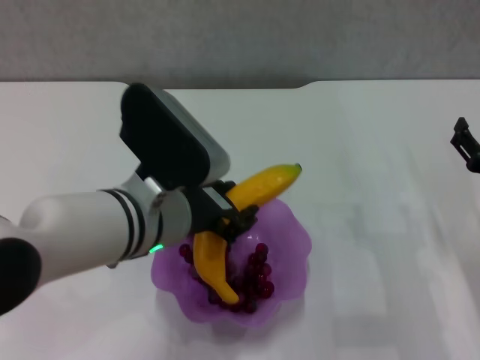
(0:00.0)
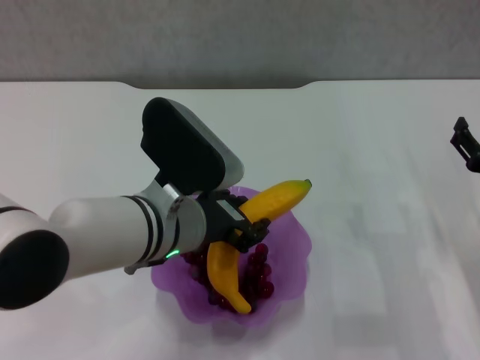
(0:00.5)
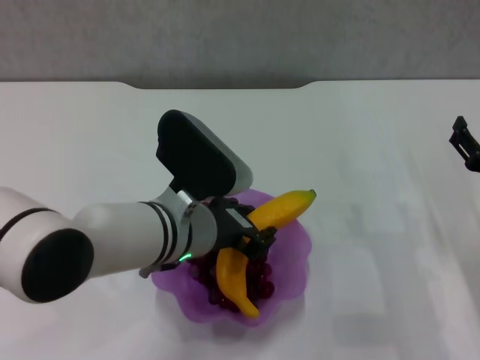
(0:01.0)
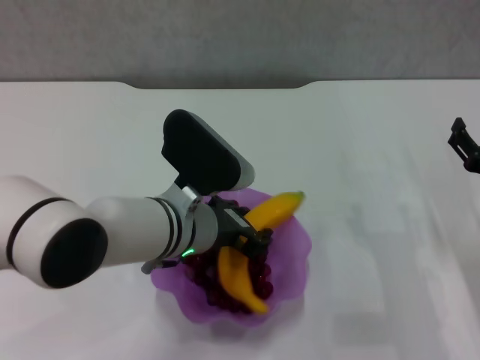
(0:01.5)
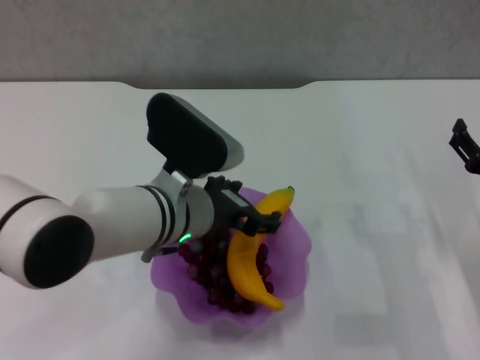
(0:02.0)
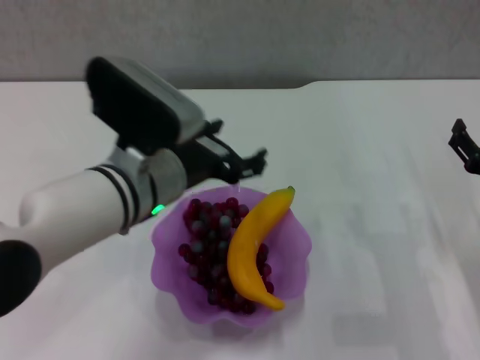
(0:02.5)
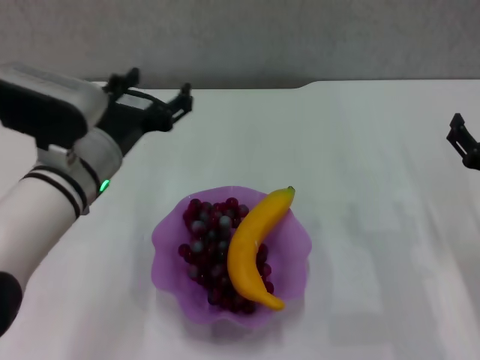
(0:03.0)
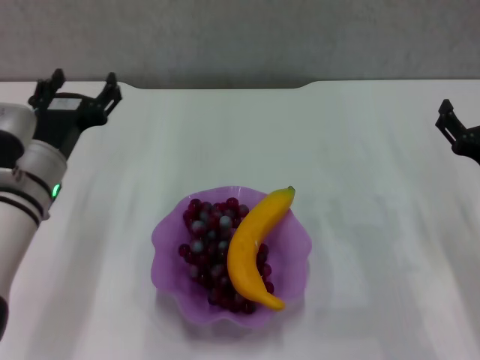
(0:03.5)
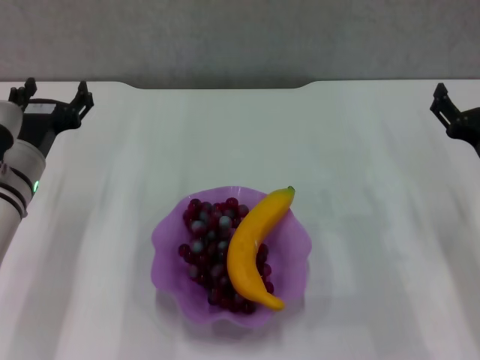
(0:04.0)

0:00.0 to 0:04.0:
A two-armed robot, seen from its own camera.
0:00.0 to 0:02.0: The left gripper moves roughly 5 cm, and opens its fingers.
0:02.0 to 0:04.0: The left gripper heads to the left, covering some 15 cm.

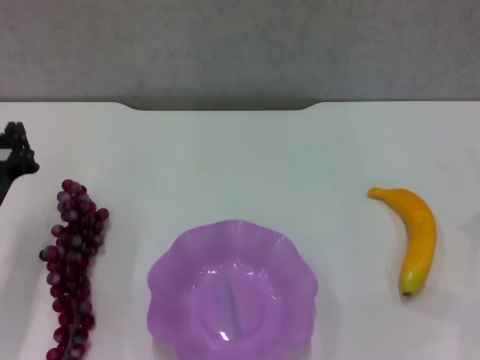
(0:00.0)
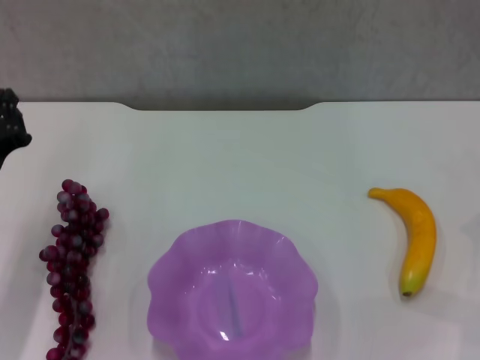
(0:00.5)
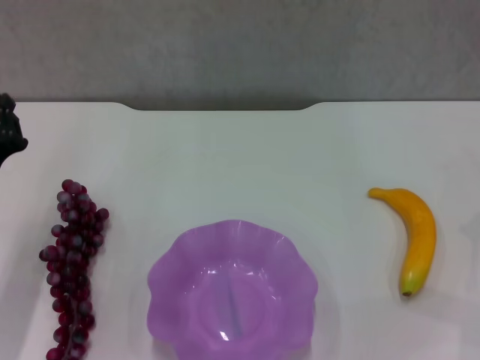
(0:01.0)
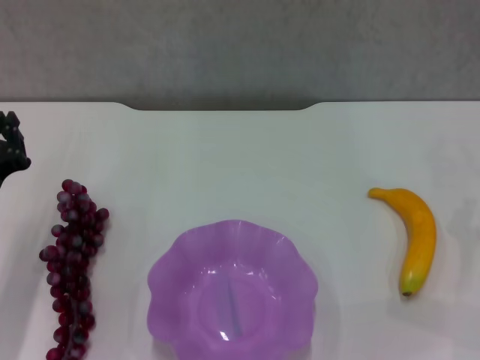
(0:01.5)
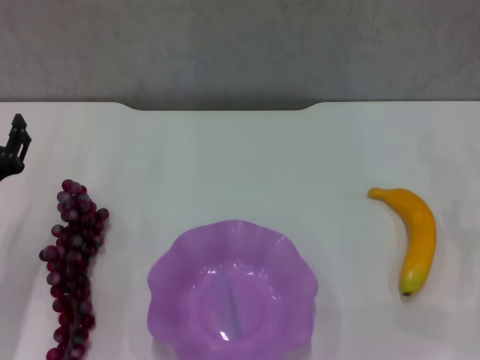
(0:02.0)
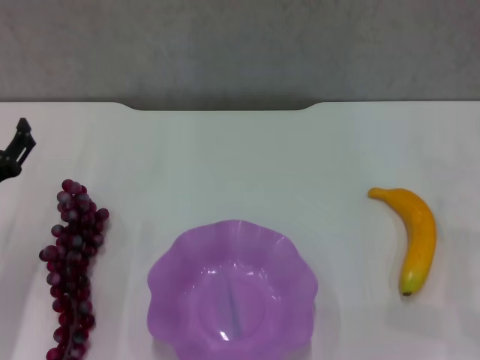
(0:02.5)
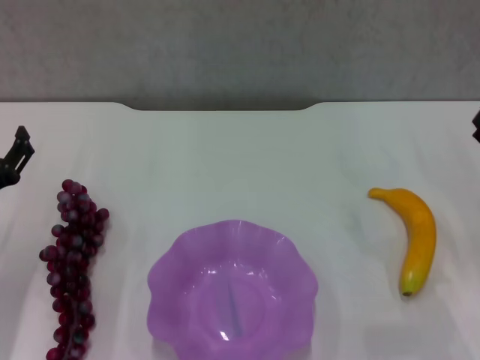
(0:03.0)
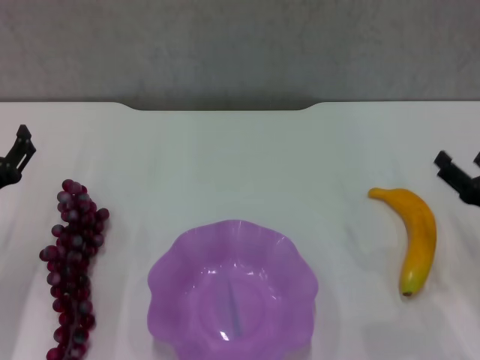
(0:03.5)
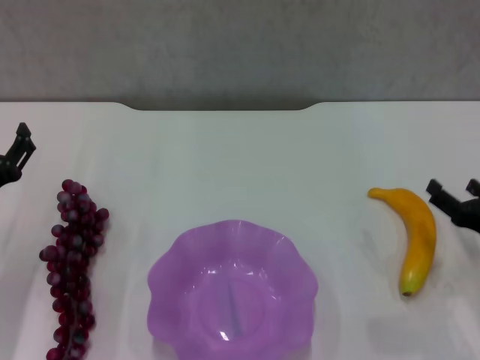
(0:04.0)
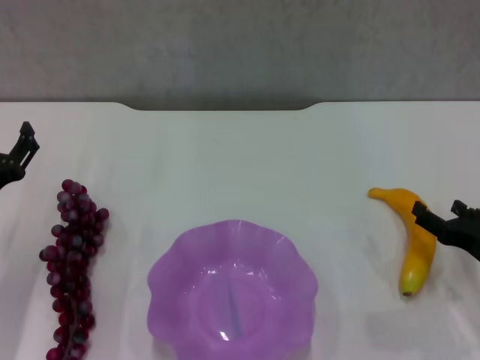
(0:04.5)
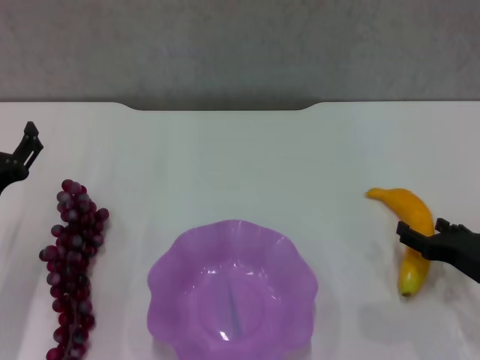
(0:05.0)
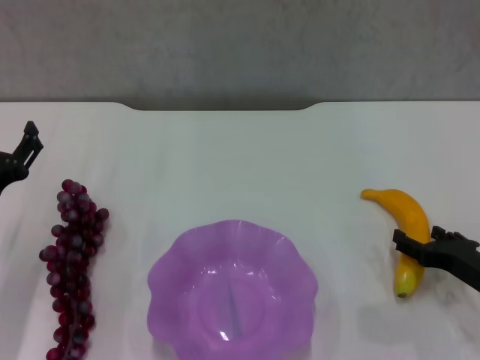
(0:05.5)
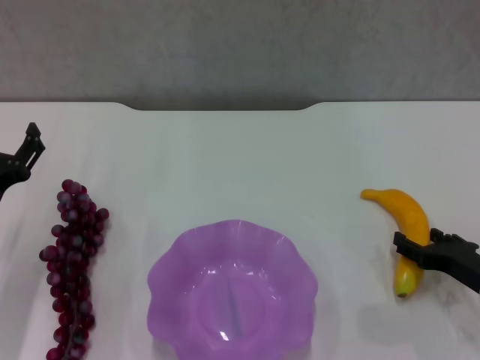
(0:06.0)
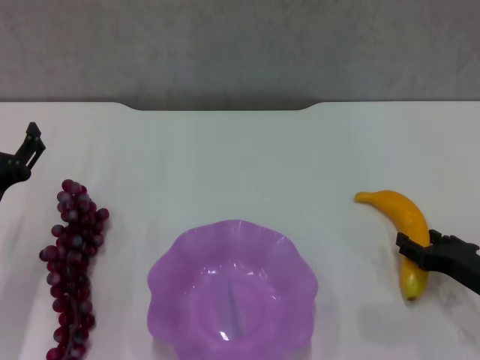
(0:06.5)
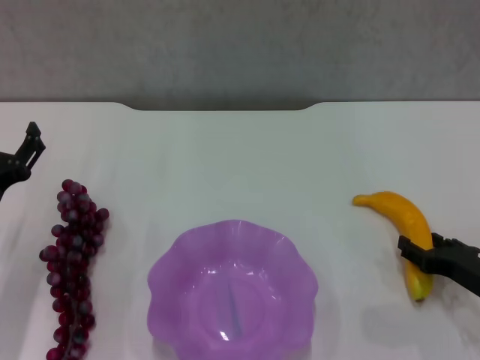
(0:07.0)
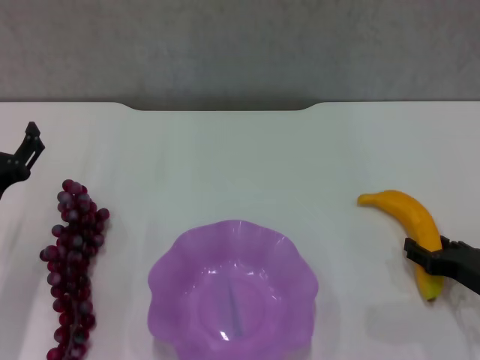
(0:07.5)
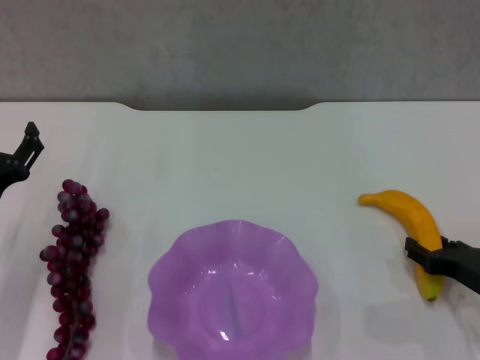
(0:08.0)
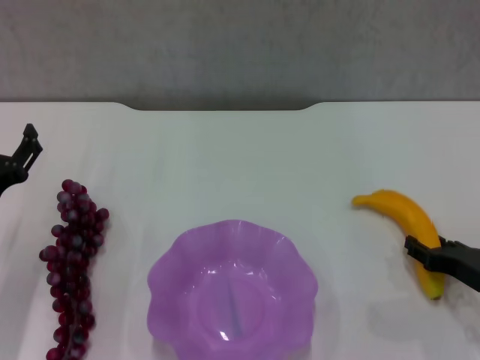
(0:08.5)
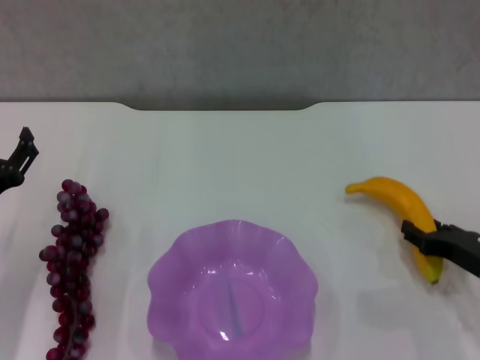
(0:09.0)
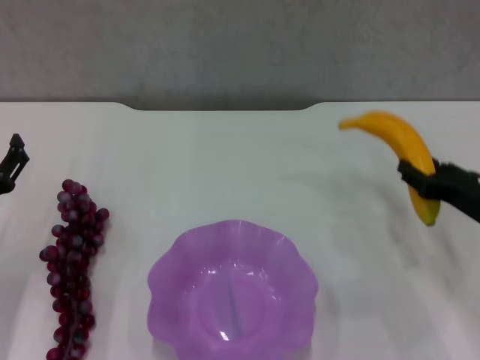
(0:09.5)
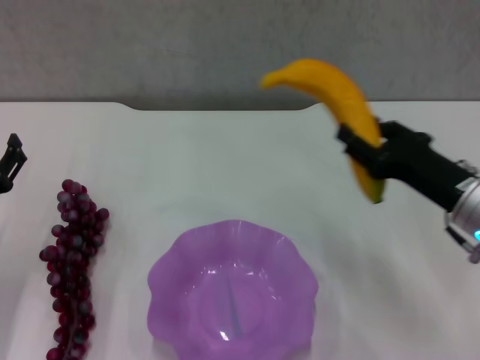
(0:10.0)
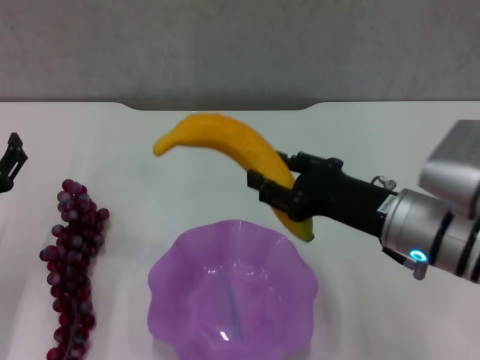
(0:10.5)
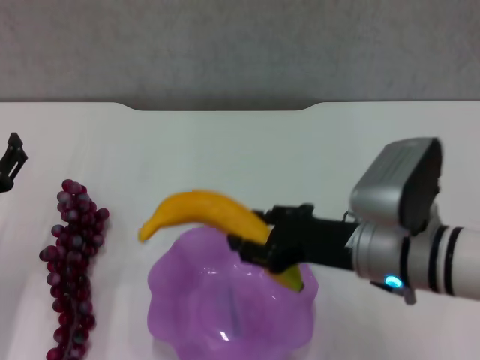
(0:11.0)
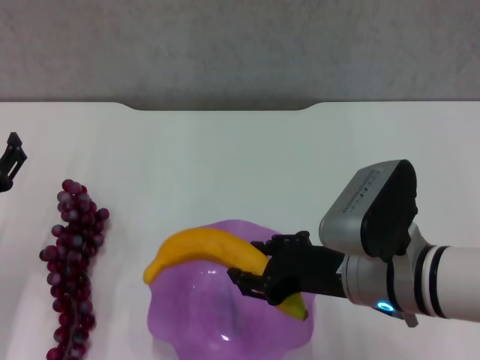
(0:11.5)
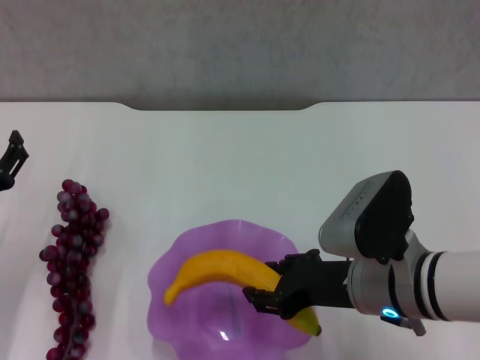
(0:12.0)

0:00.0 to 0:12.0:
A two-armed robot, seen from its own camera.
Step, 0:00.0 to 0:06.5: Grasp the banana with right gripper.
0:00.0 to 0:02.0: The left gripper opens its fingers.
0:02.0 to 0:04.0: The right gripper shifts about 10 cm to the left and downward.
0:04.0 to 0:06.0: The grippers make only small movements.
0:06.0 to 0:08.0: Both grippers stay about where they are.
0:08.0 to 0:10.0: The right gripper travels upward and to the left by roughly 15 cm.
0:10.0 to 0:12.0: The right gripper goes roughly 10 cm to the left.

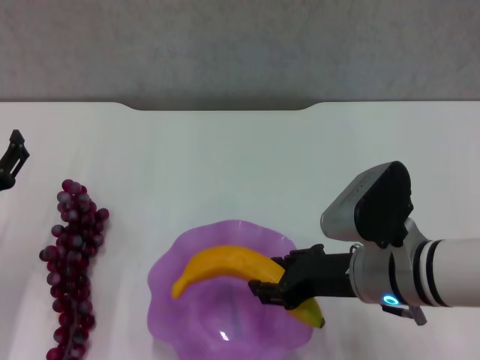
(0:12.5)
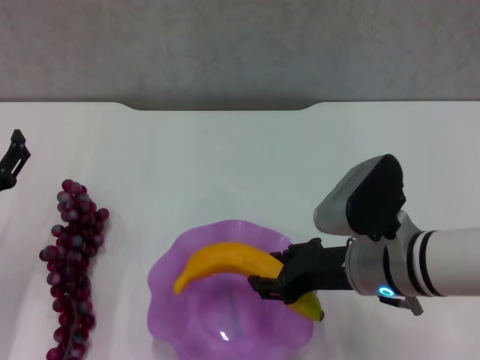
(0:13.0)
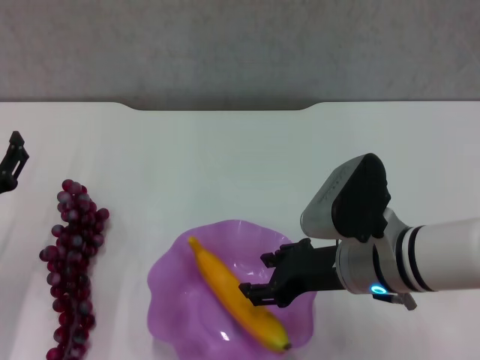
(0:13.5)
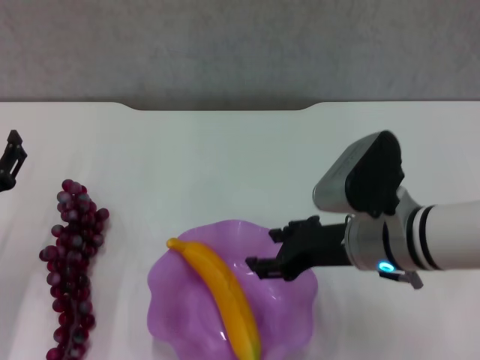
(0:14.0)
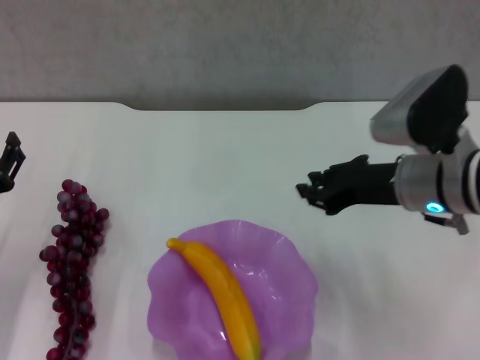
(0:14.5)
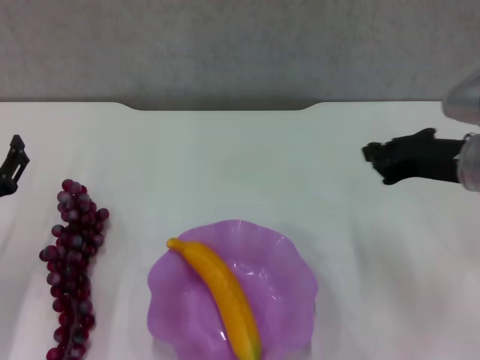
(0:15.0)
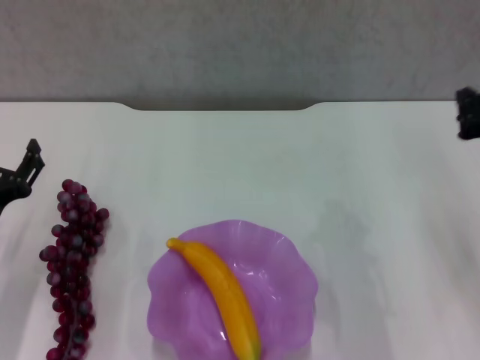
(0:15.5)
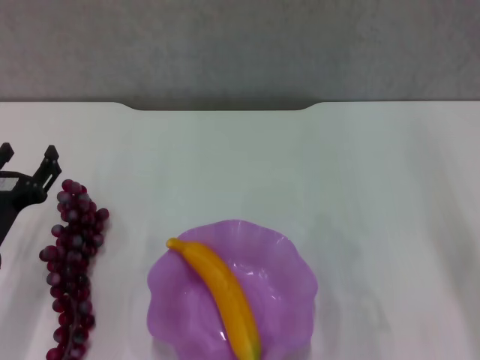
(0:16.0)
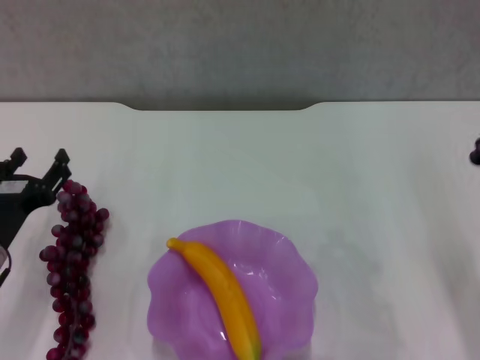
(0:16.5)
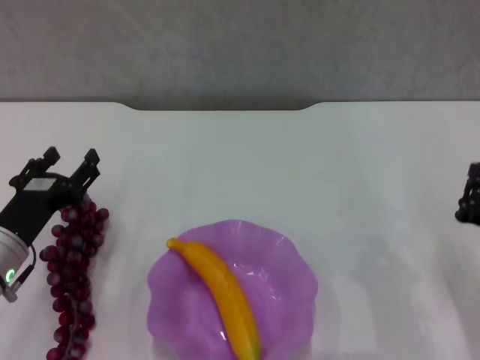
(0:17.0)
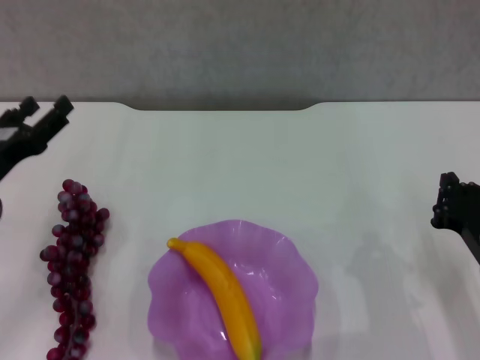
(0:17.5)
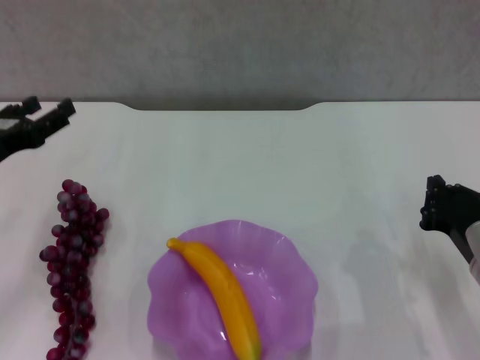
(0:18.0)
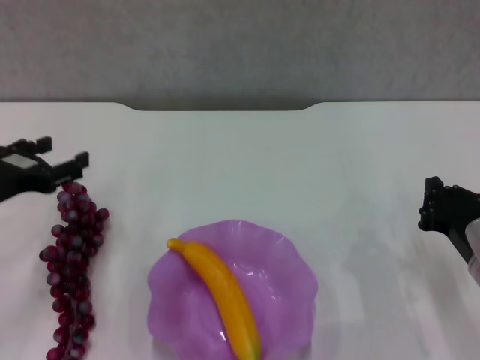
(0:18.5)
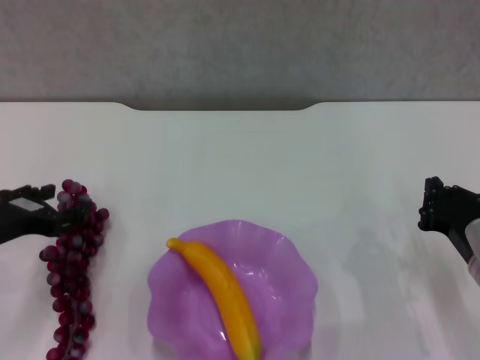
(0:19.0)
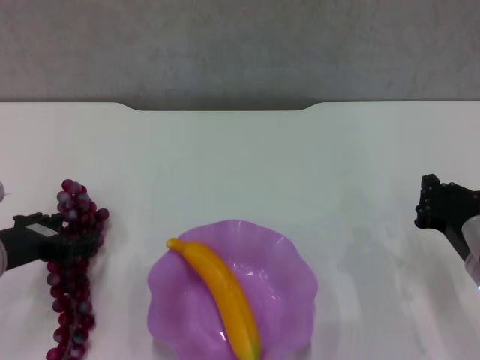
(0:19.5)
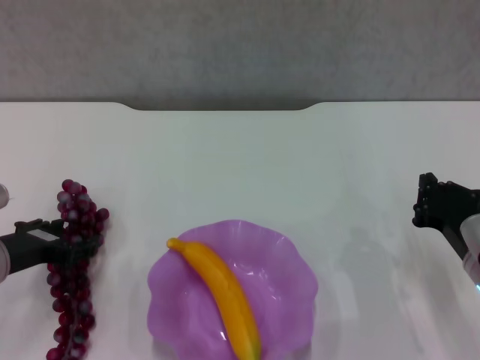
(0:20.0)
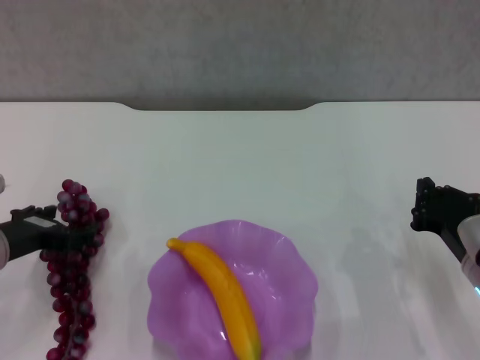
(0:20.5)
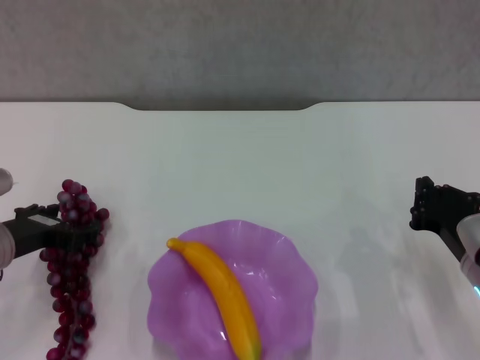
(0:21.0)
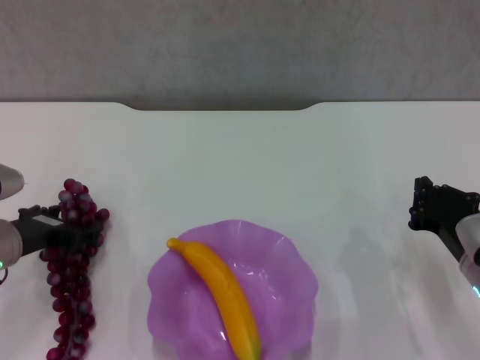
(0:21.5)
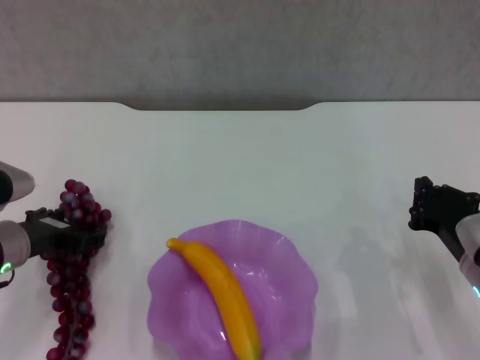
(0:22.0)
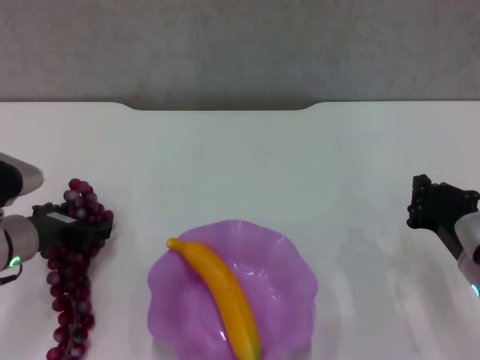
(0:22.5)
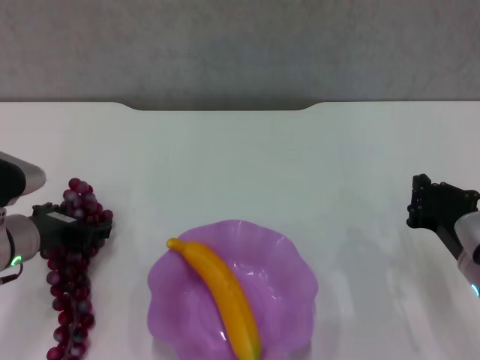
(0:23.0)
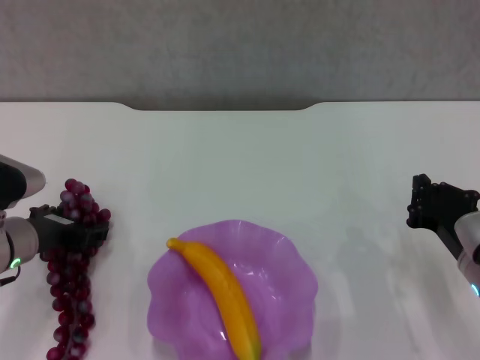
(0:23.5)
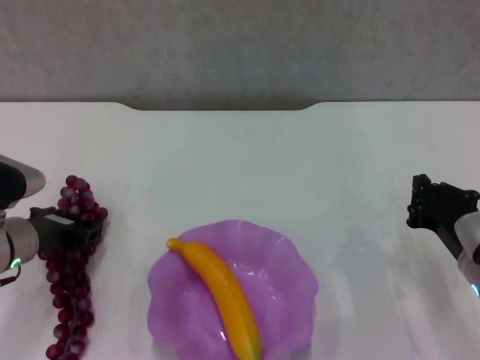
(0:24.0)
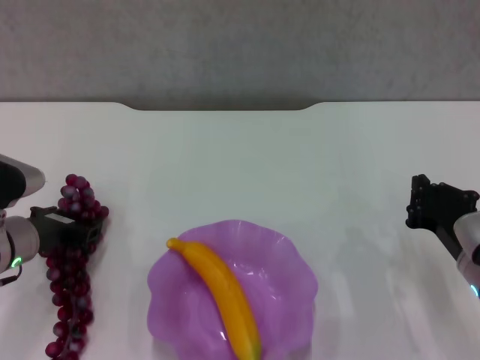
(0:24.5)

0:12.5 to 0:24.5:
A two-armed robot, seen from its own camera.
0:12.5 to 0:14.5: The right gripper travels forward and upward by about 10 cm.
0:14.5 to 0:16.5: The right gripper moves to the right, backward and downward, some 10 cm, and closes.
0:16.5 to 0:18.5: The left gripper travels upward by approximately 10 cm, while the right gripper shifts approximately 5 cm downward.
0:18.5 to 0:20.5: The left gripper changes place by approximately 5 cm.
0:20.5 to 0:22.5: The grippers stay close to where they were, moving slightly.
0:22.5 to 0:24.5: The left gripper closes.
